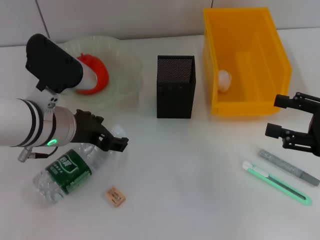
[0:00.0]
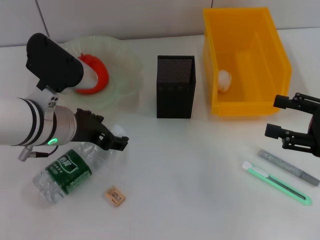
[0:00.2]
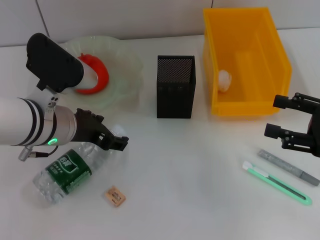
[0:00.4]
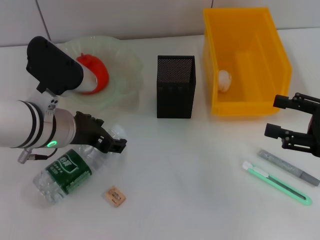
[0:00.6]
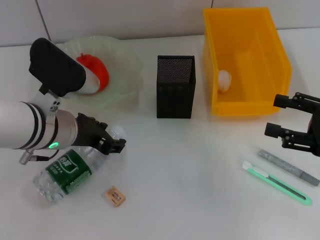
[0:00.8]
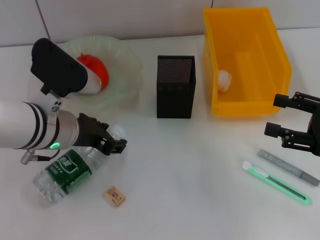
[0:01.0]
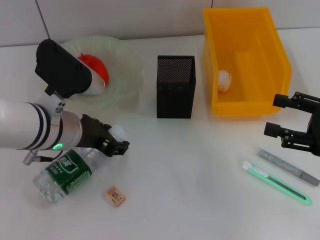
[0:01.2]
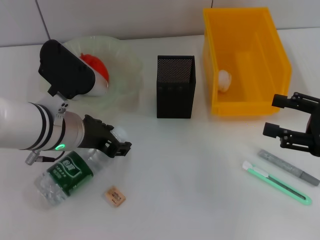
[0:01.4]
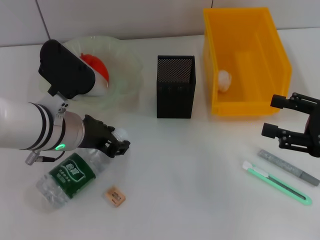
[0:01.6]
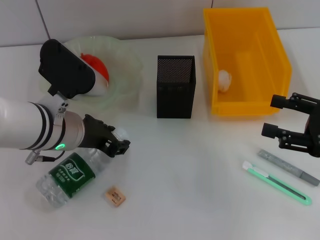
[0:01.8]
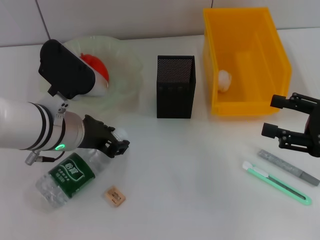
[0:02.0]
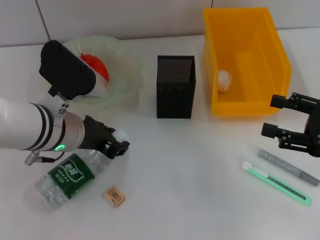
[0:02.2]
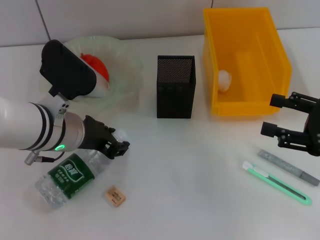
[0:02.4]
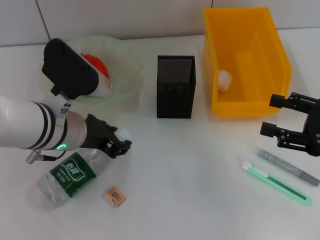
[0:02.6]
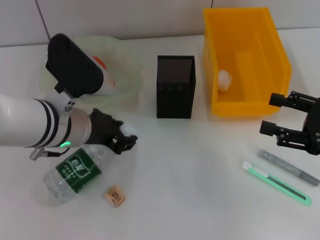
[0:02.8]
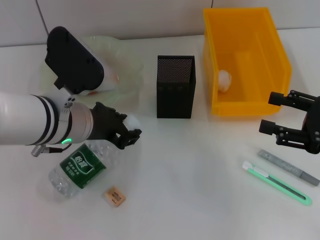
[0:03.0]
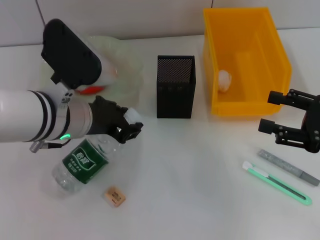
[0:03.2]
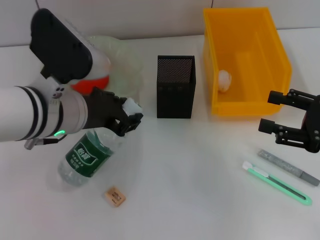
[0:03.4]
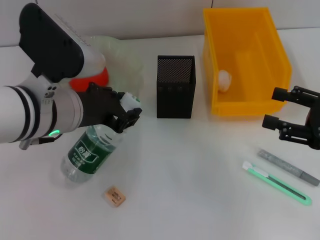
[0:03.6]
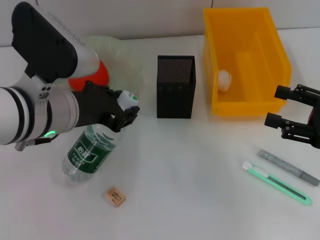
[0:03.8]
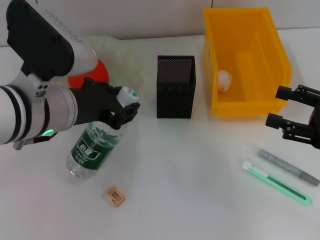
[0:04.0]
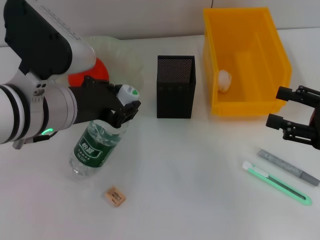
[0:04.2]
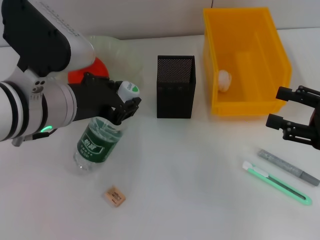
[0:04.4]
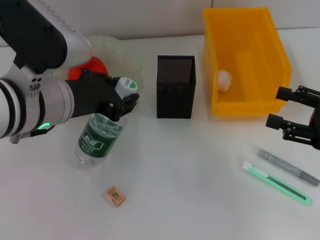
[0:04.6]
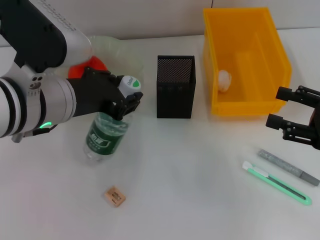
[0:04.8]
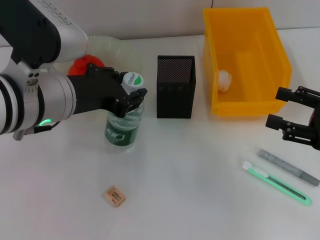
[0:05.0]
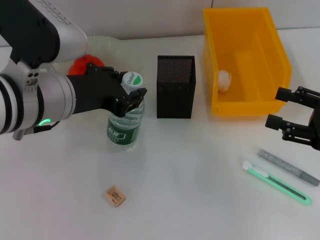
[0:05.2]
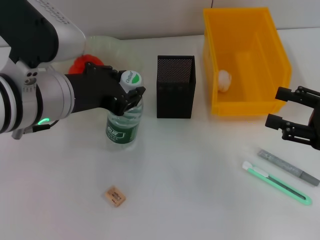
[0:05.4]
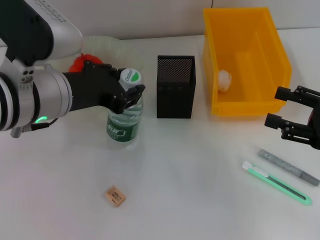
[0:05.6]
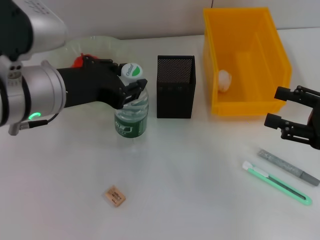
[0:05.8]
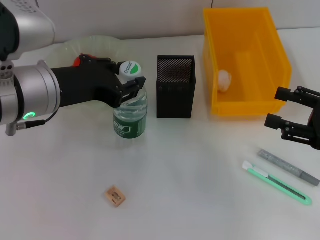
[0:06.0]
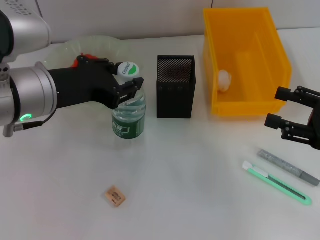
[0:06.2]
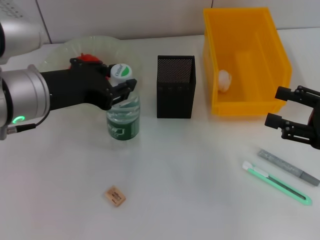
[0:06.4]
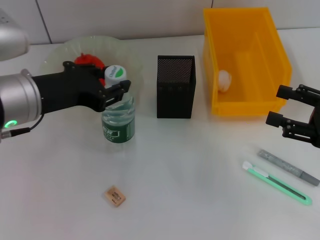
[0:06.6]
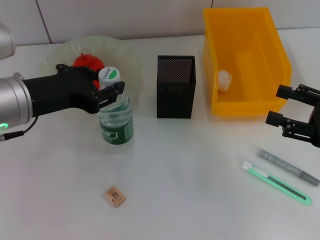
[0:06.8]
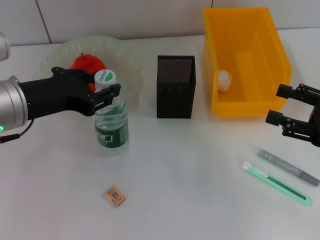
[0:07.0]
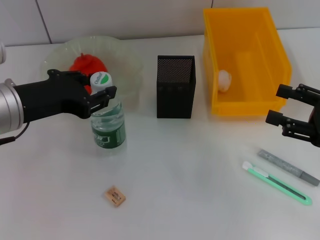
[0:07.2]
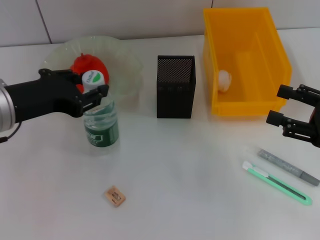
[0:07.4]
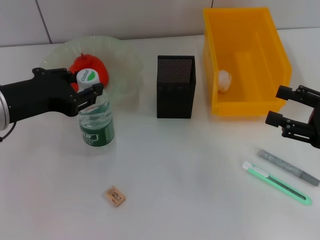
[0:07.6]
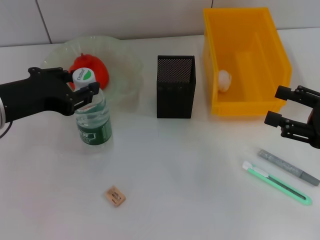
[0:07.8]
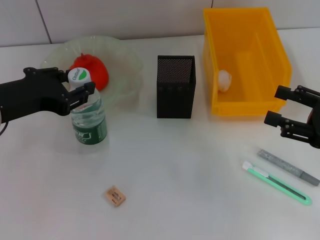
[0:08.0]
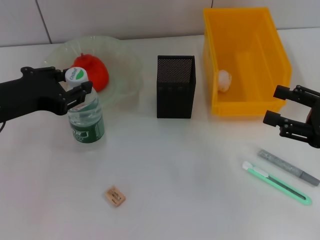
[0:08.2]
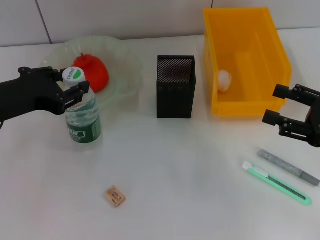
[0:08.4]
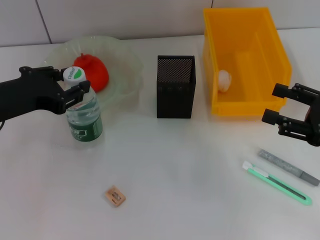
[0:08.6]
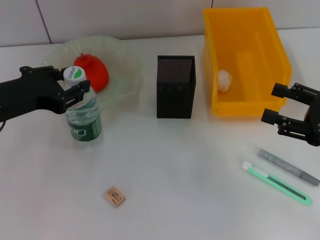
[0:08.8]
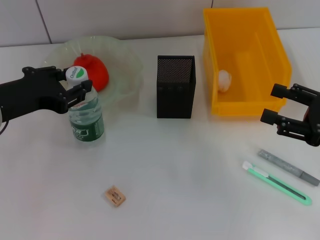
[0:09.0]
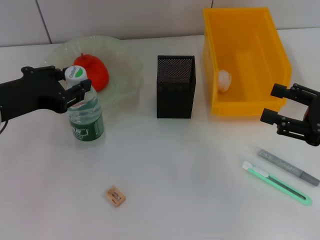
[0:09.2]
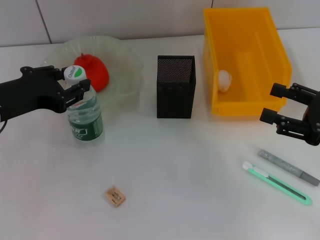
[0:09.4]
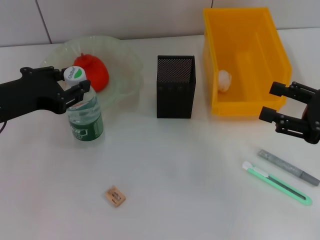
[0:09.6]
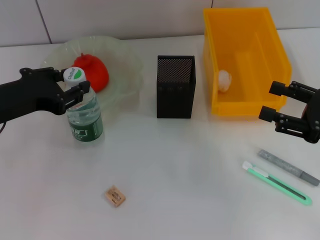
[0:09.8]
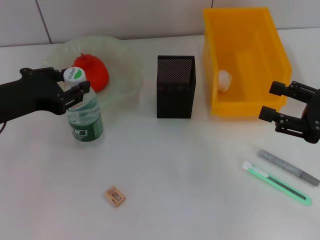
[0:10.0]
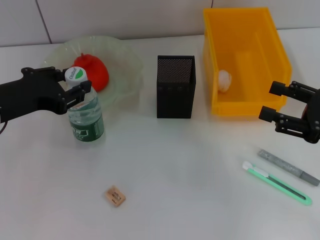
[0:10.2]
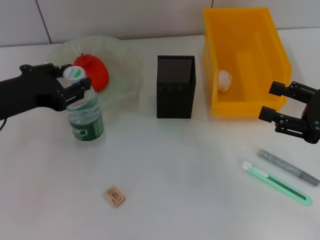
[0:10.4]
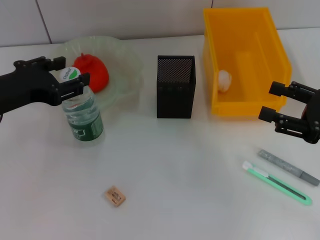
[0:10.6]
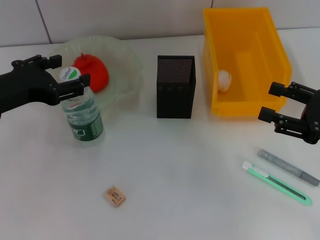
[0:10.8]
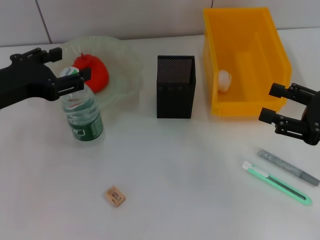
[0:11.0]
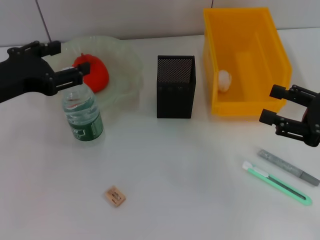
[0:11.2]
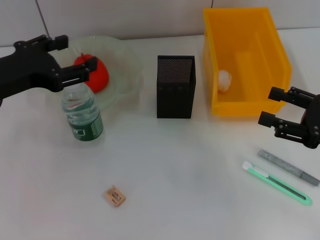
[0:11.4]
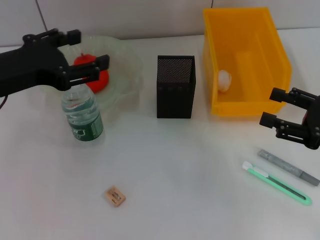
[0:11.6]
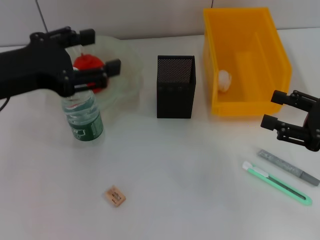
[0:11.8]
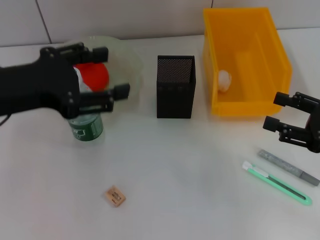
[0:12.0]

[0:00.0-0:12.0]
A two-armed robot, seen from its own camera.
Step, 0:01.6 to 0:10.8: Place the water bottle on the table with the left hand.
0:00.0 to 0:01.6: The left gripper closes.
0:01.6 to 0:03.0: There are only small adjustments of the grippers.
0:03.0 to 0:04.4: The left gripper ends up about 5 cm from where it was.
0:04.4 to 0:06.0: The grippers stay close to where they were, moving slightly.
0:06.0 to 0:07.6: The left gripper heads to the left, covering approximately 5 cm.
0:07.6 to 0:09.0: There are only small adjustments of the grippers.
0:09.0 to 0:10.4: Neither gripper changes place.
0:10.4 to 0:12.0: The left gripper shifts by some 5 cm, and opens.

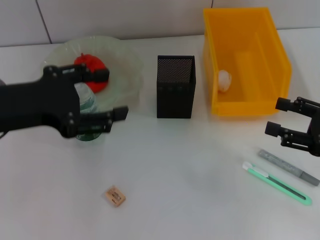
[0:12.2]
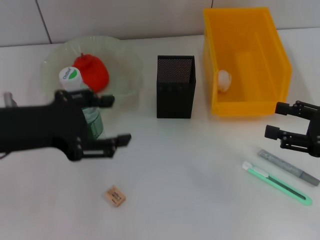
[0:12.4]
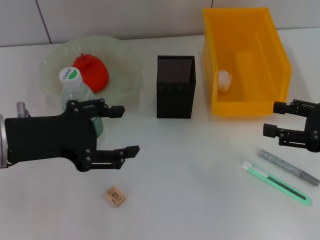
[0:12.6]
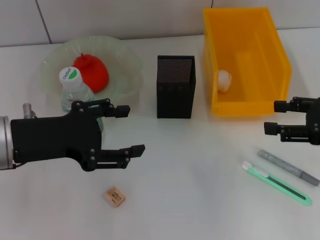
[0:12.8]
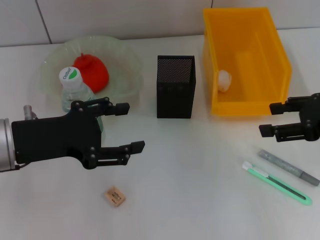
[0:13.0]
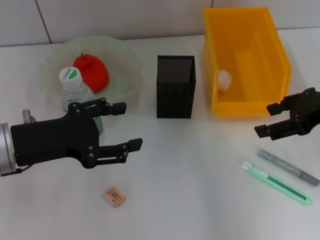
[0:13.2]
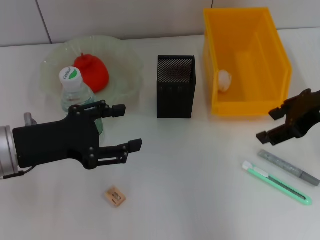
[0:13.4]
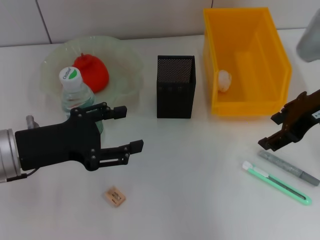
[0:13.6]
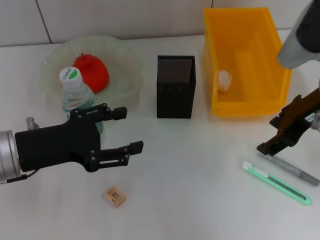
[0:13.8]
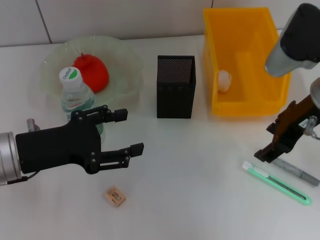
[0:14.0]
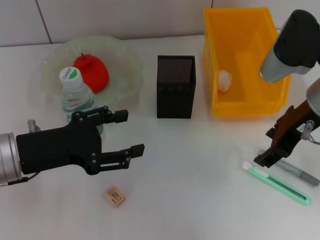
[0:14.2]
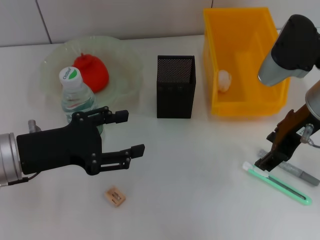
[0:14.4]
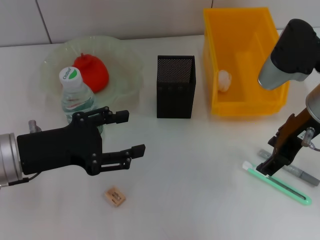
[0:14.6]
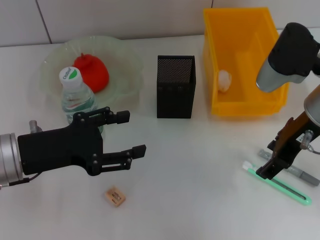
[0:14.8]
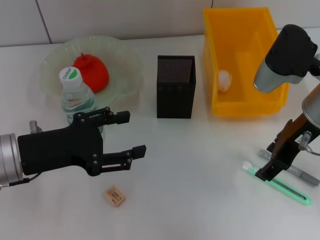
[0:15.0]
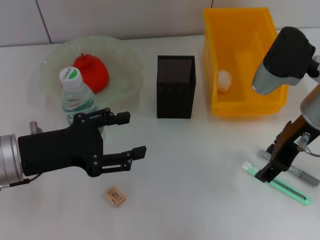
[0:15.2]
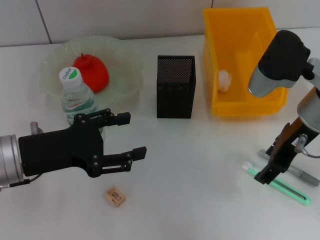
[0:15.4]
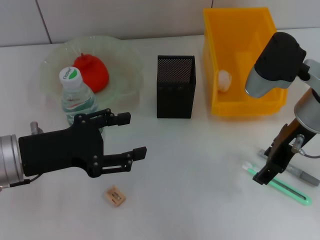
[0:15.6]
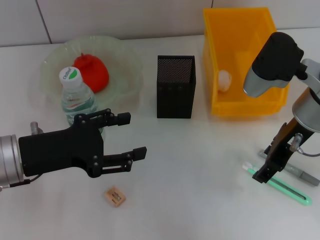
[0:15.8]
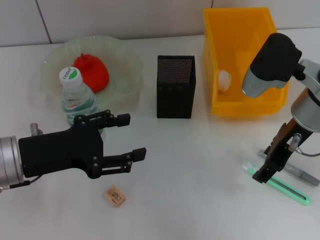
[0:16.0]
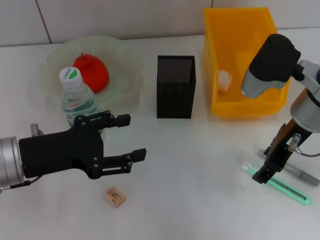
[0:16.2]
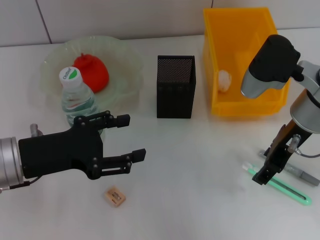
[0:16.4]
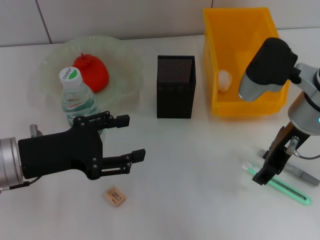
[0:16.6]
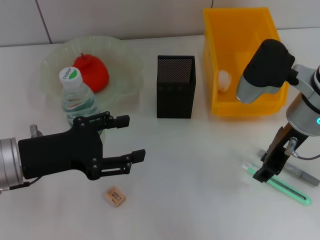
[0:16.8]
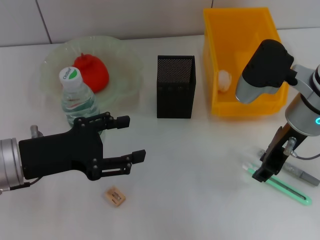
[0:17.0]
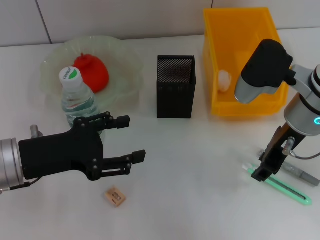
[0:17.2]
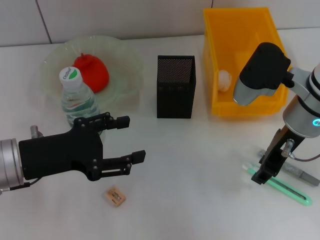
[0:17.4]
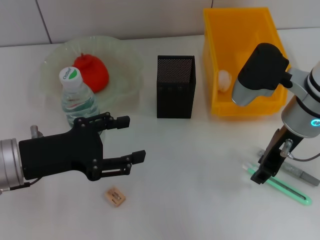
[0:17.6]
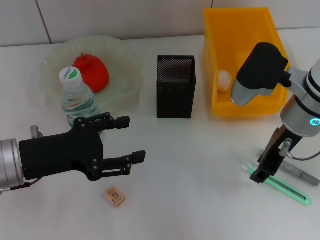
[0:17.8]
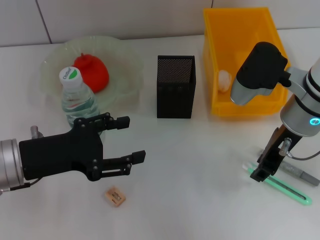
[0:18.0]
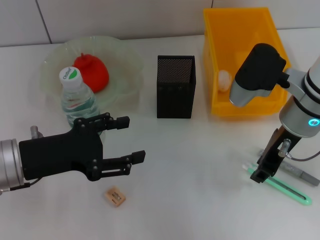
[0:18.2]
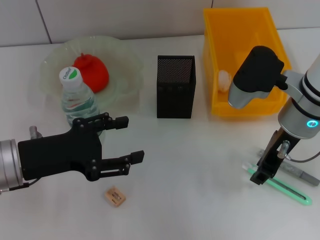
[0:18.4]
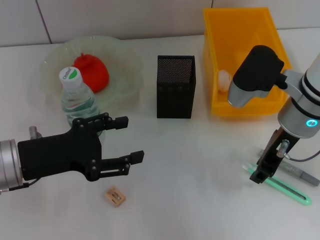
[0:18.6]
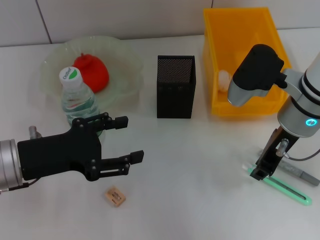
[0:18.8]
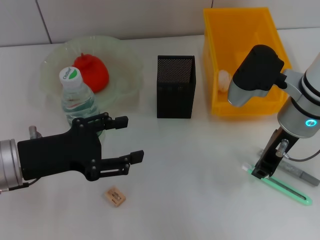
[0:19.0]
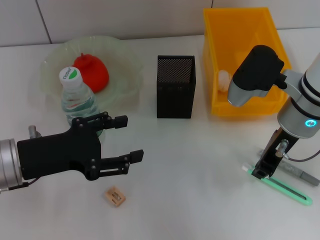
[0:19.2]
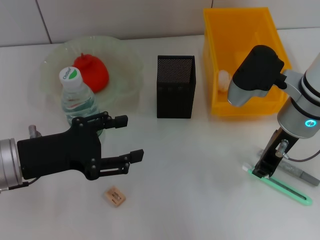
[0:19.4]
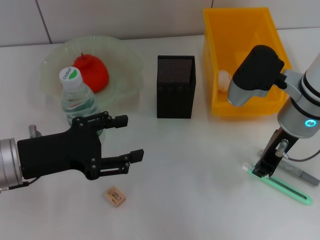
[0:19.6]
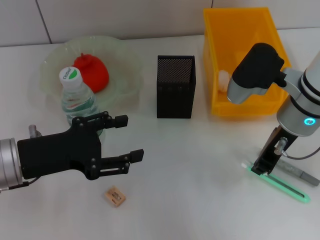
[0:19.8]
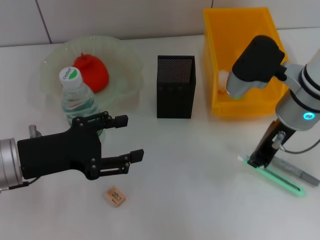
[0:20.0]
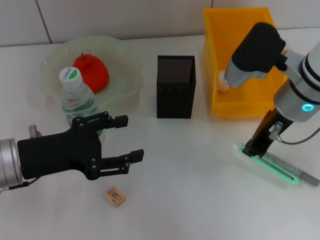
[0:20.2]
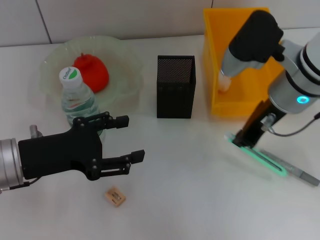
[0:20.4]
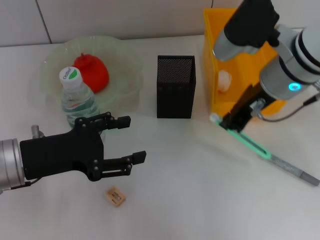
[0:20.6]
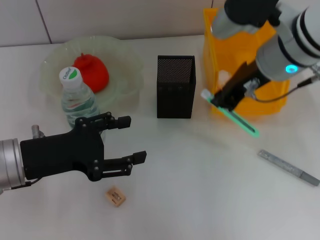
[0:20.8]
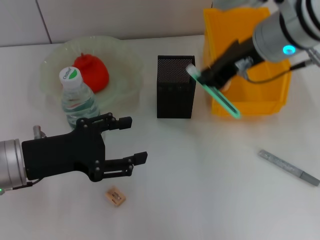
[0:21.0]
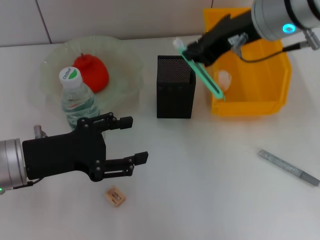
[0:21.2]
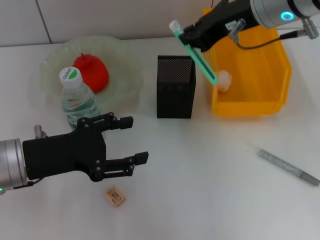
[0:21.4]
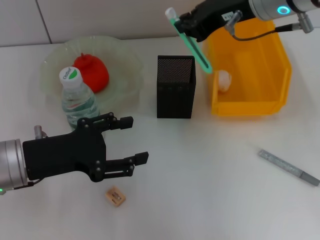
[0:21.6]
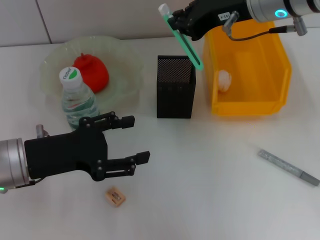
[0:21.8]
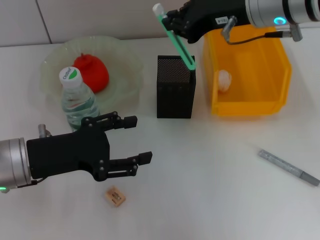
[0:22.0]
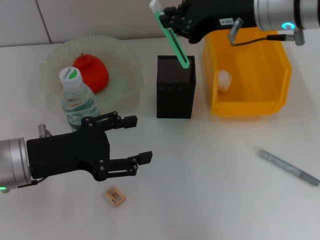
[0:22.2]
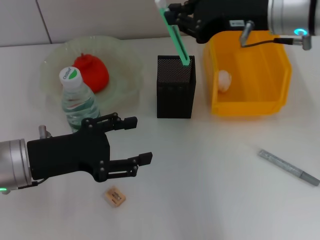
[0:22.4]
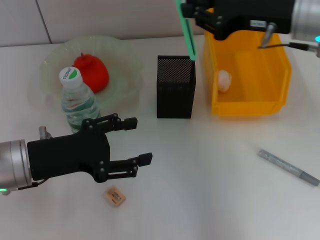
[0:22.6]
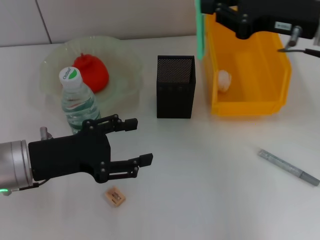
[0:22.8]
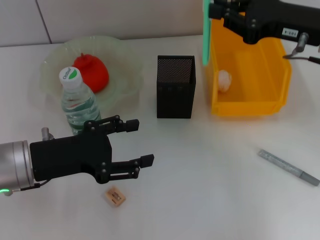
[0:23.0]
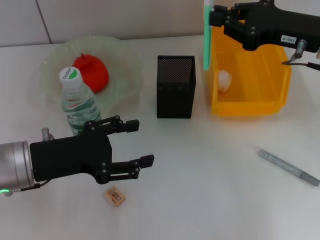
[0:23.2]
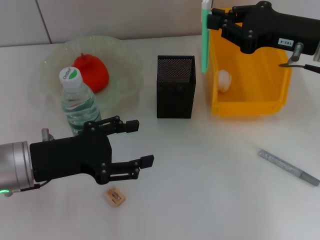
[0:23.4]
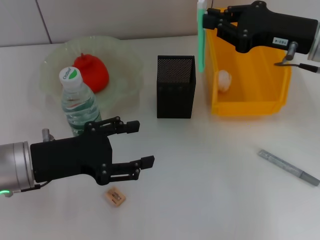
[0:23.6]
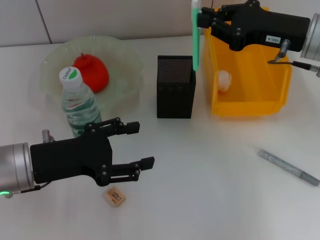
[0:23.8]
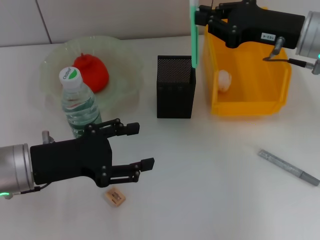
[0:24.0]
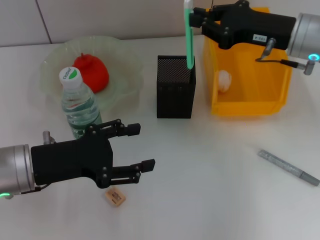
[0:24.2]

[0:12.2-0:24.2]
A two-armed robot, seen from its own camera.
Step, 0:12.2 to 0:19.6: Grab the blue utility knife with the right hand.
0:12.2 to 0:13.8: The right gripper heads to the left, upward and forward, covering some 15 cm; the left gripper travels downward by roughly 10 cm.
0:13.8 to 0:16.6: The grippers move only a little.
0:16.6 to 0:18.2: Neither gripper changes place.
0:18.2 to 0:19.8: The right gripper closes.
0:19.8 to 0:21.2: The right gripper travels upward by some 10 cm.
0:21.2 to 0:22.6: The right gripper heads to the right, covering some 5 cm.
0:22.6 to 0:24.2: The right gripper is displaced downward by approximately 5 cm.
